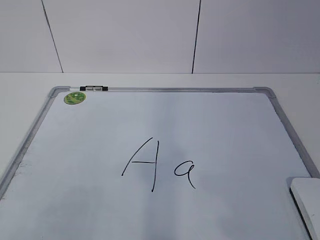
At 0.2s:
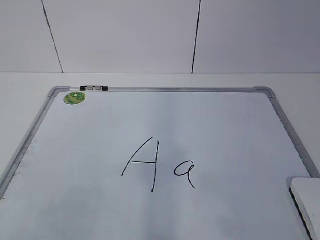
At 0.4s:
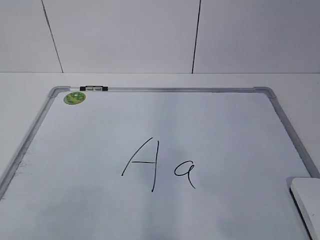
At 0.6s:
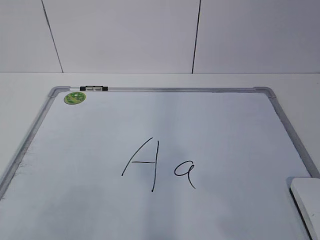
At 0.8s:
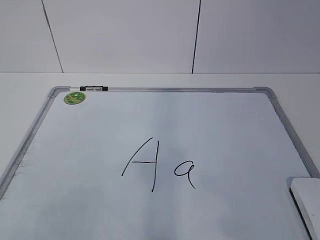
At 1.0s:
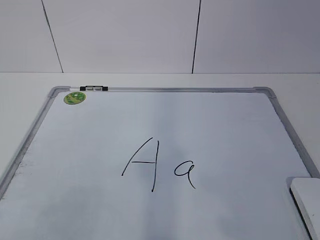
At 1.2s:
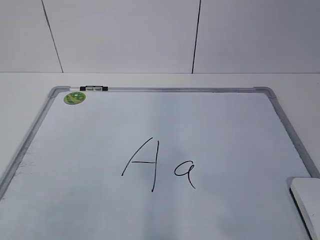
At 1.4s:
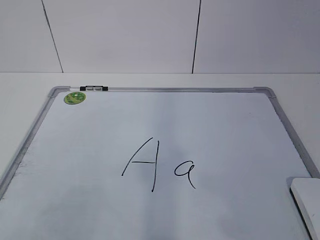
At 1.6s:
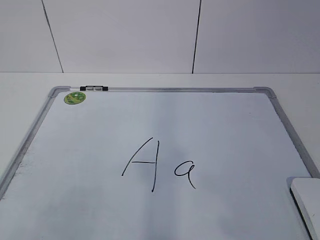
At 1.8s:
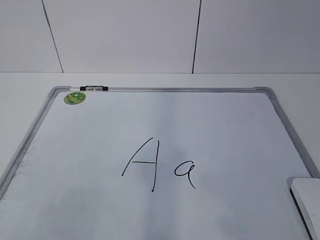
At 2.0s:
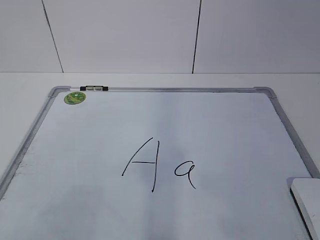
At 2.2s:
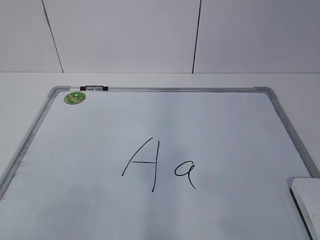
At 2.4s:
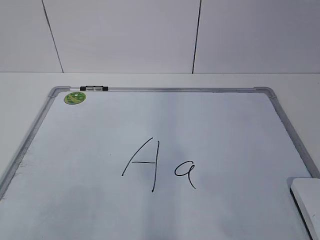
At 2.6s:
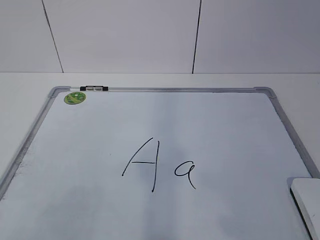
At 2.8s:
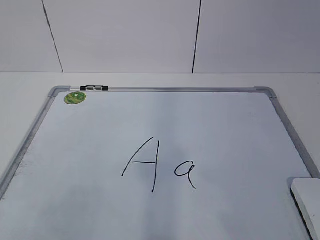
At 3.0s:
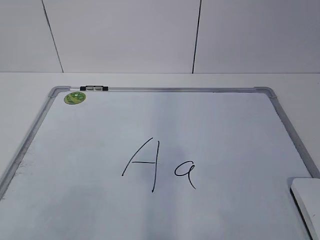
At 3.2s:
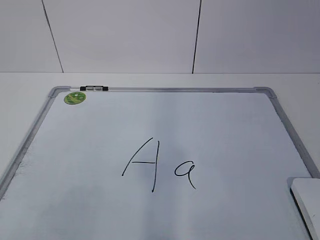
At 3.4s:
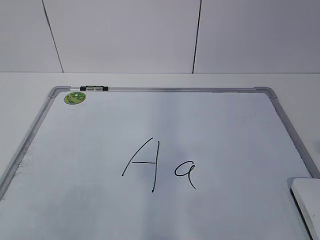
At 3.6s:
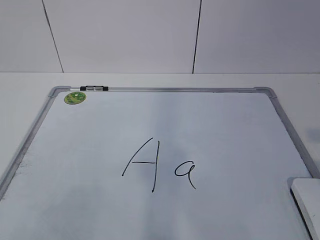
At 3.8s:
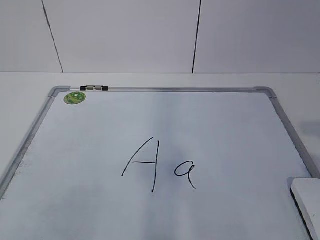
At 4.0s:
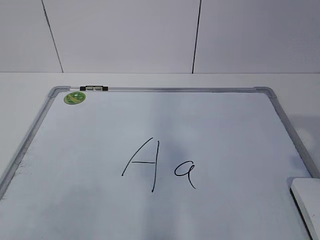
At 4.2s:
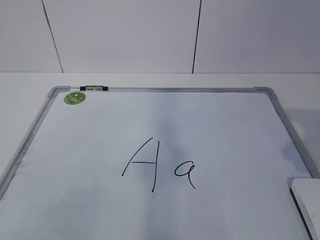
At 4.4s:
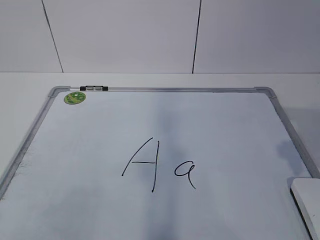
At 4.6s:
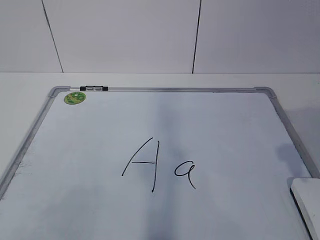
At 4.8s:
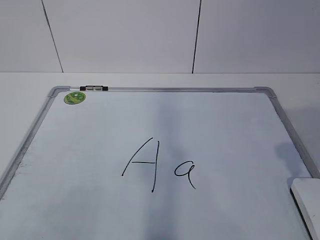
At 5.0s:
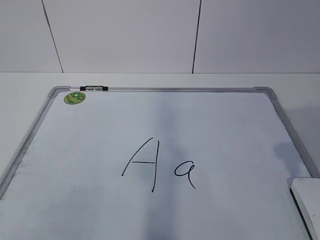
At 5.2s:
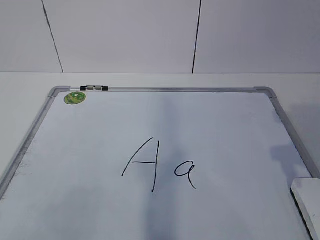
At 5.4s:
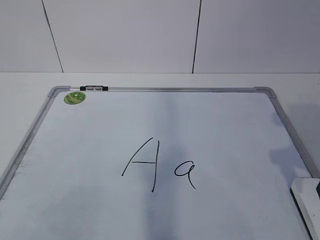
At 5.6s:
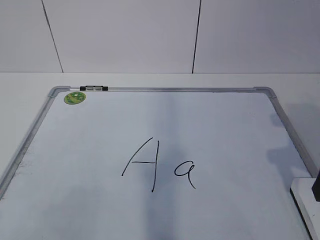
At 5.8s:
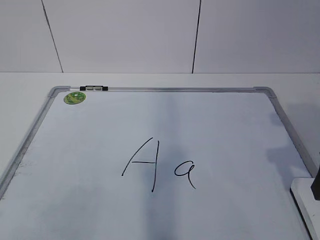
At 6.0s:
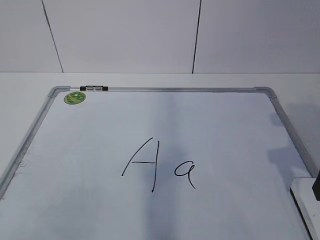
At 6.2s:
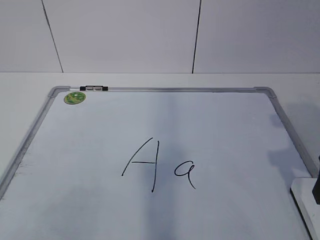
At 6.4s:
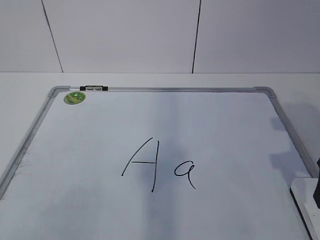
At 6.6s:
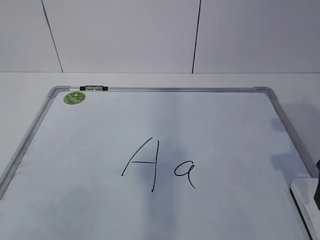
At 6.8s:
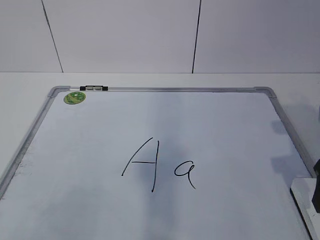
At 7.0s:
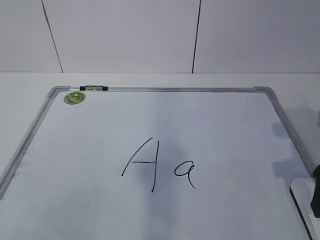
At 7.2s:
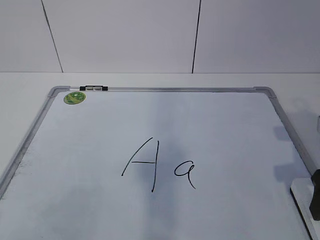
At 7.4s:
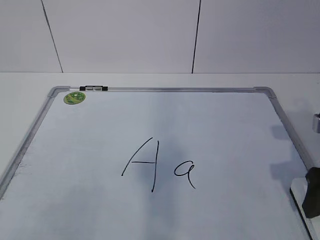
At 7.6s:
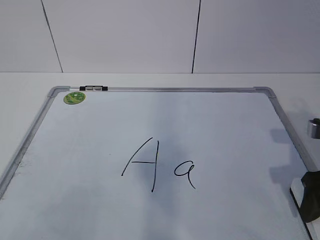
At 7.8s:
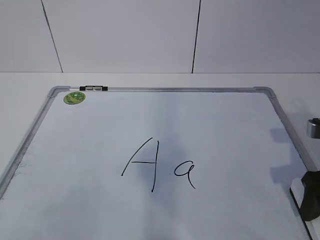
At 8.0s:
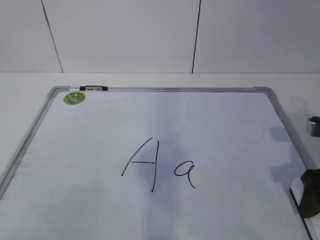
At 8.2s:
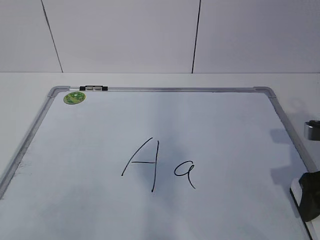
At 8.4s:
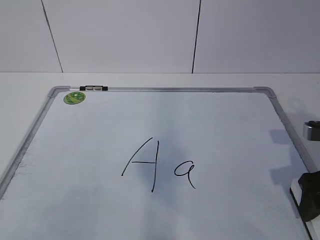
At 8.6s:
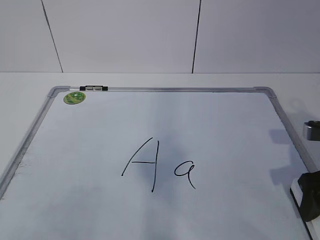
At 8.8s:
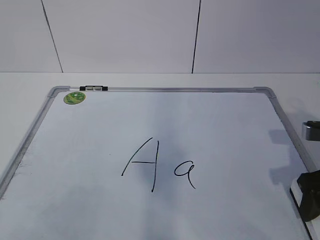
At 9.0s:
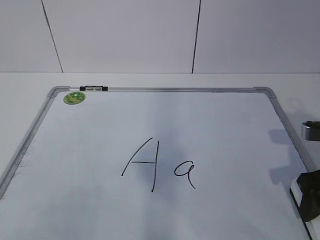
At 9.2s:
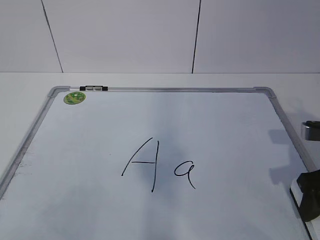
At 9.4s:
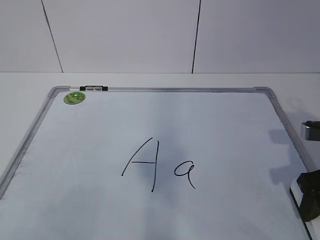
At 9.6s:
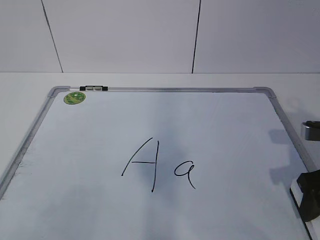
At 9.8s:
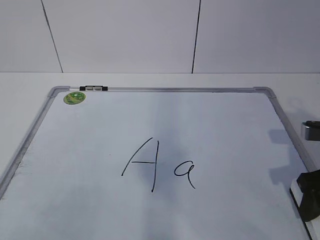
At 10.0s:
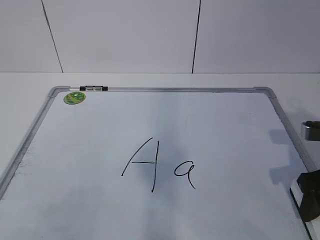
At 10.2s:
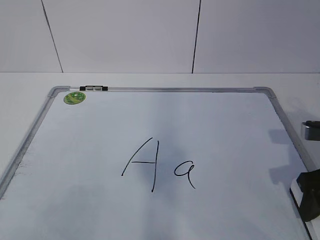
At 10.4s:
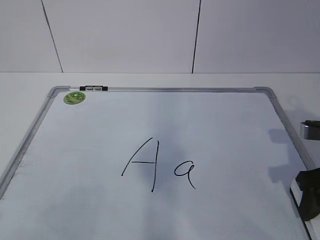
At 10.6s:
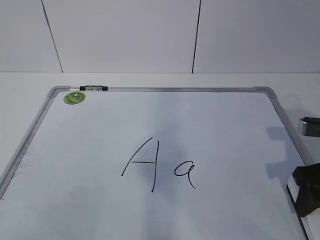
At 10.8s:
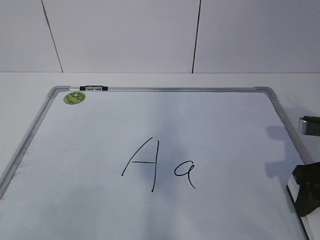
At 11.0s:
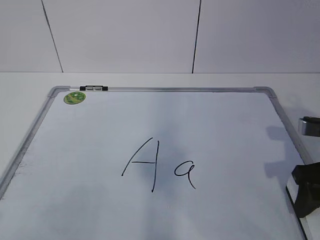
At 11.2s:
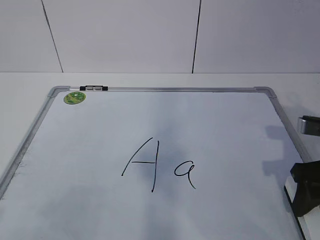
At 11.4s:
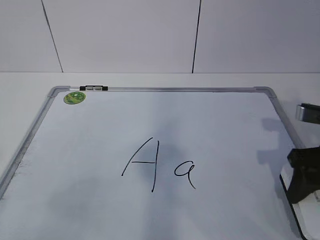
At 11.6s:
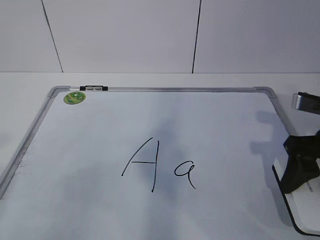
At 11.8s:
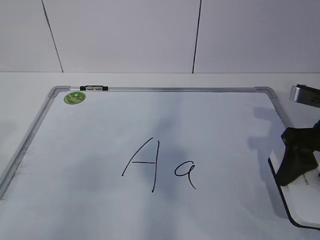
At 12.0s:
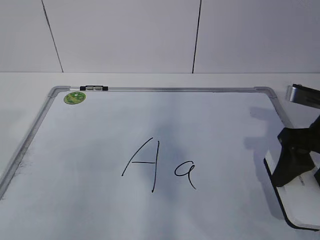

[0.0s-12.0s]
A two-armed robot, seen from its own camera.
Task of the whole recording: pick up the eraser on the blackboard and erase the letter "a".
3.0s to 4.4s: The right gripper travels forward by roughly 15 cm, and opens its fingers.
6.0s to 7.6s: The right gripper is displaced downward by some 5 cm.
9.0s to 10.4s: Both grippers stay put.
10.4s to 12.0s: The right gripper changes place by some 5 cm.

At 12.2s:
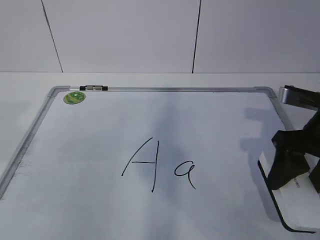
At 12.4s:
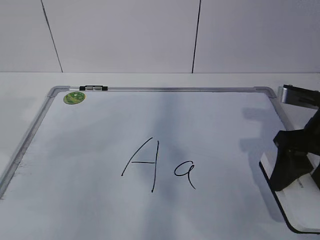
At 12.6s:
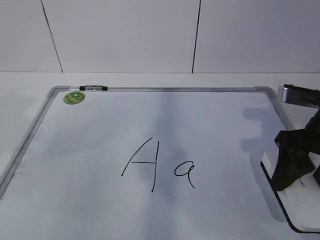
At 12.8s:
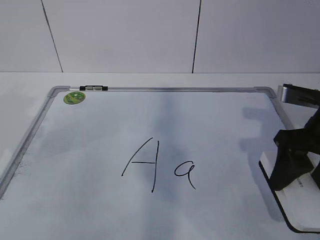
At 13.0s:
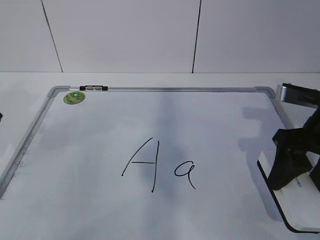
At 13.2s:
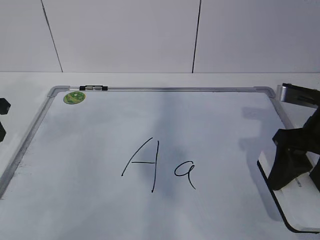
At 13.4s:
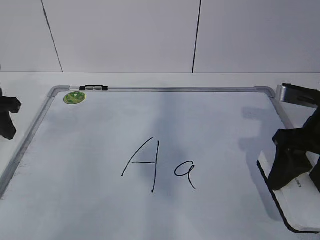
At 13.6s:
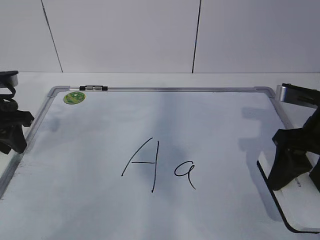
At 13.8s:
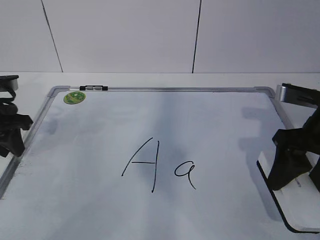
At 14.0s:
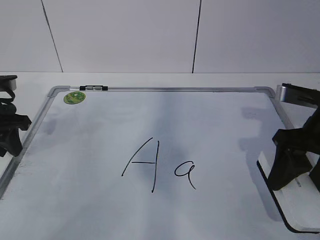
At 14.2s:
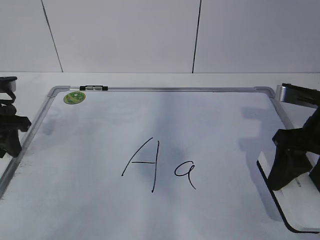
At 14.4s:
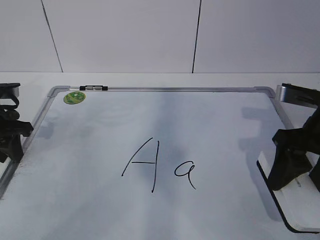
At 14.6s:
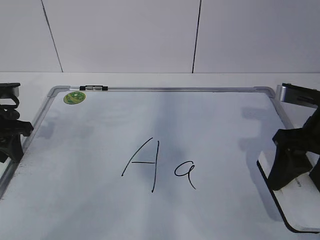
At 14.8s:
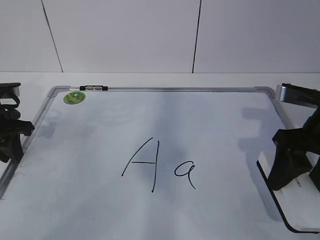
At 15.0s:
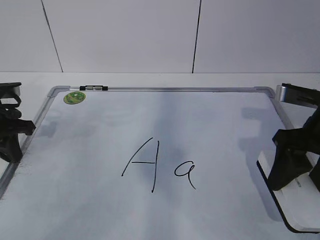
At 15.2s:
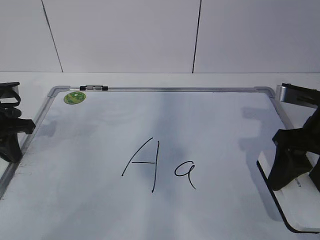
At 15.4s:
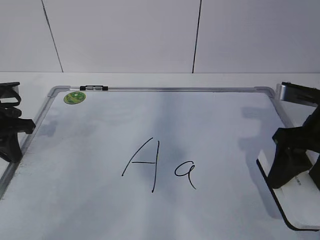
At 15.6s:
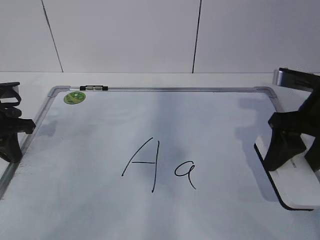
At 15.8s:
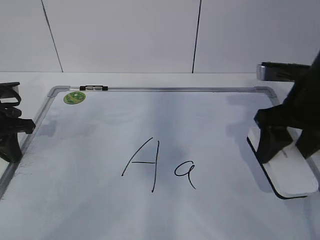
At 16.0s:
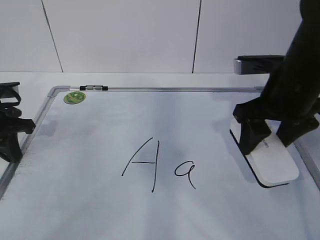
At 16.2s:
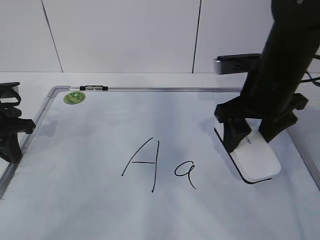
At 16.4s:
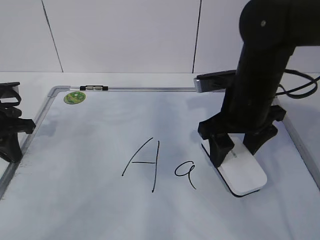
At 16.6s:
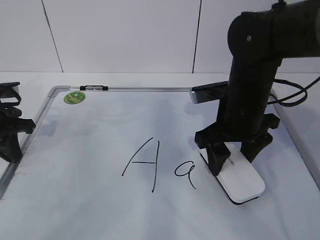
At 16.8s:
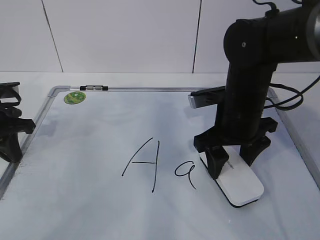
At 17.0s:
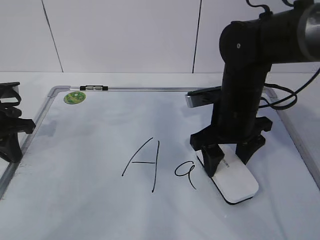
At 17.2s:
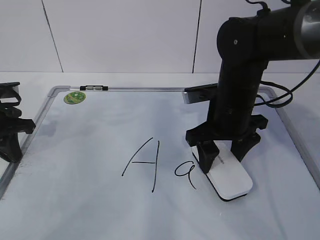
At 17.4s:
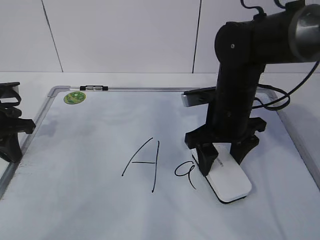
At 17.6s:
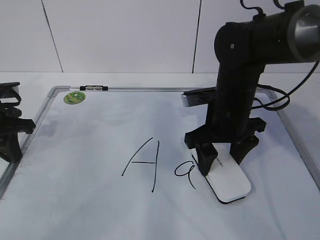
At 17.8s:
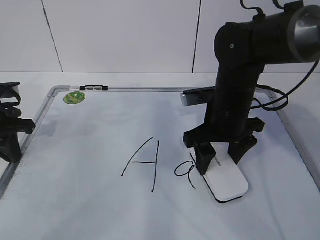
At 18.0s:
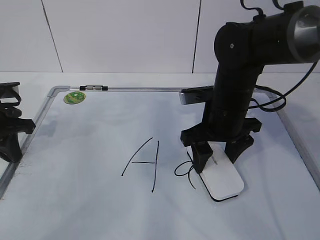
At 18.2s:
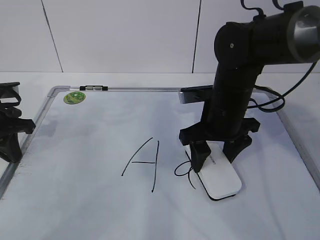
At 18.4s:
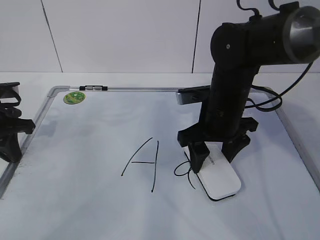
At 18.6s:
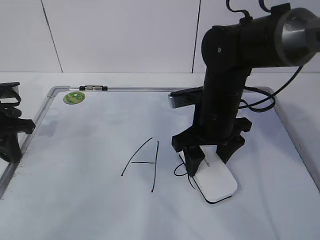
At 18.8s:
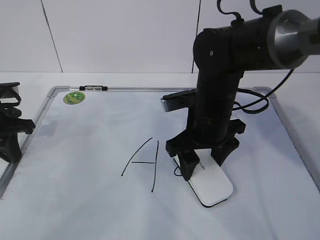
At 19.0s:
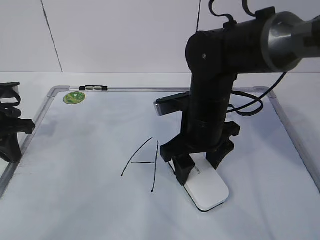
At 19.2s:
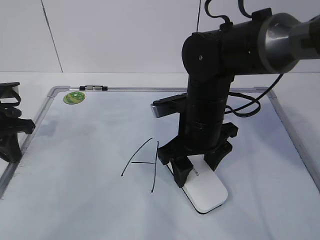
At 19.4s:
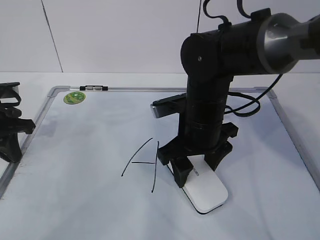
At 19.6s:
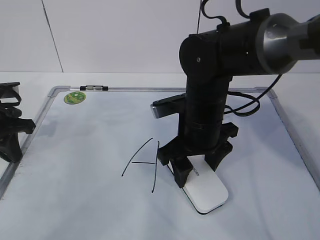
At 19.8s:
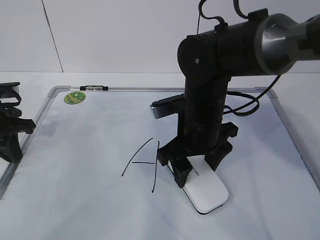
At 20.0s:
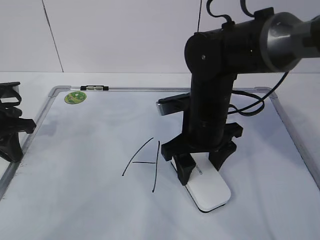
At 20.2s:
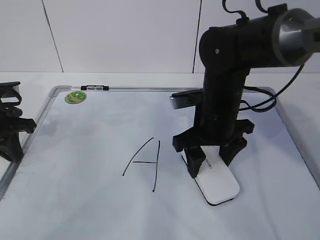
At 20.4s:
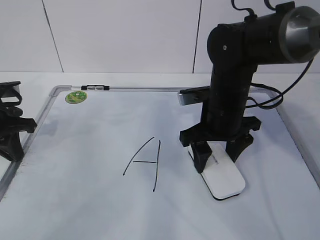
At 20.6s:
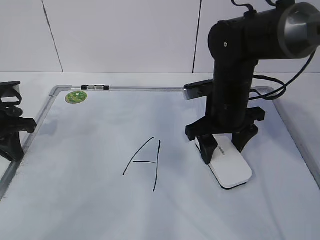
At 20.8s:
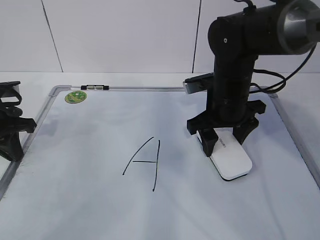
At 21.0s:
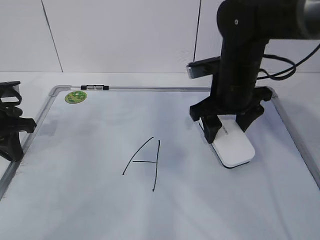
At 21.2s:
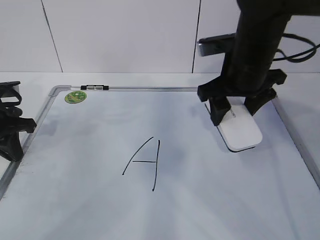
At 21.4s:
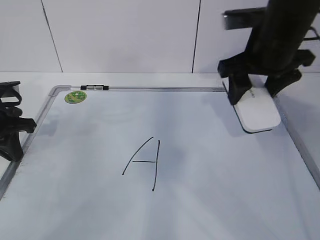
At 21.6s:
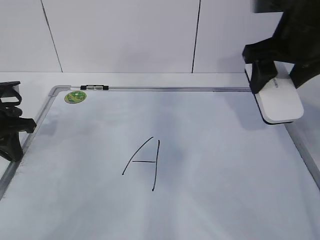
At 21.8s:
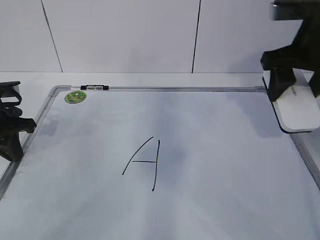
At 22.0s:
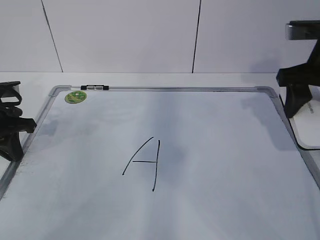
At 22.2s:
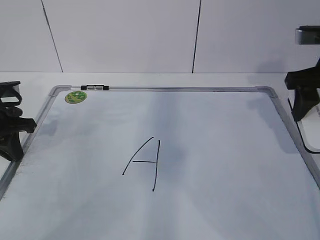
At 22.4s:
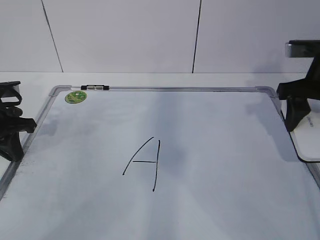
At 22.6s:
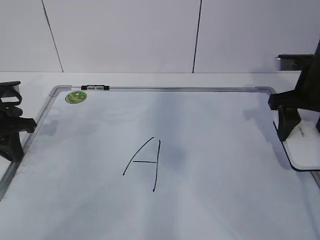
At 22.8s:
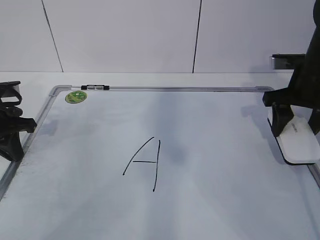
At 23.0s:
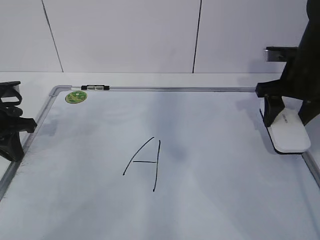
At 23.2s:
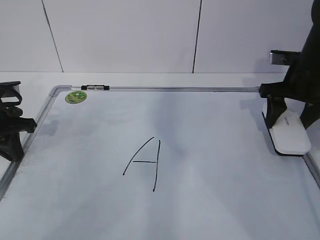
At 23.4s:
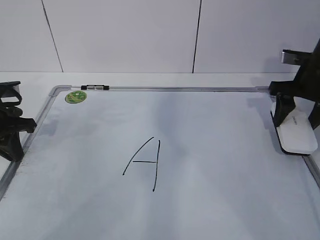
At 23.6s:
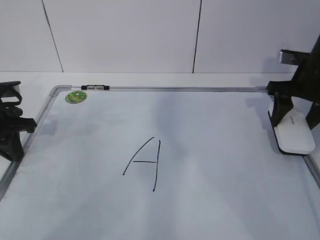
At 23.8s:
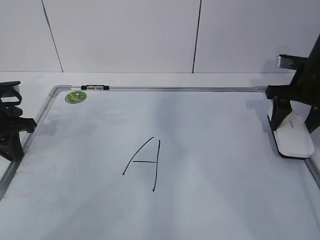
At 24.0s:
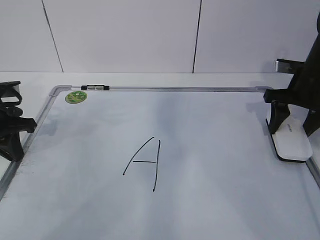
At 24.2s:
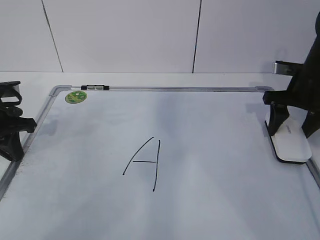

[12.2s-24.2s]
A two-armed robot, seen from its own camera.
Task of the whole recording: pick up the eraser on the blackboard and erase the letter "a".
Step, 12.6s to 17.2s: Erase the letter a with your right hand.
Step, 17.4s to 21.6s: Put down the eraser with your right hand.
12.2s to 13.8s: The left gripper shifts about 20 cm forward and downward.
13.8s to 15.2s: The left gripper closes its fingers.
15.2s to 16.6s: The right gripper shifts about 10 cm to the left and forward.
16.6s to 18.2s: The grippers move only a little.
18.2s to 19.8s: The grippers make only small movements.
19.8s to 21.2s: The right gripper moves upward and to the right, about 10 cm.
21.2s to 22.6s: The right gripper heads to the right, covering roughly 10 cm.
22.6s to 24.2s: The right gripper ends up some 5 cm from where it was.
